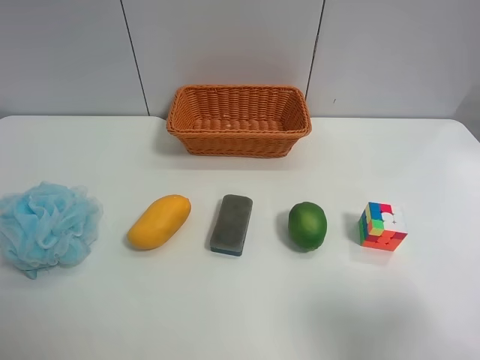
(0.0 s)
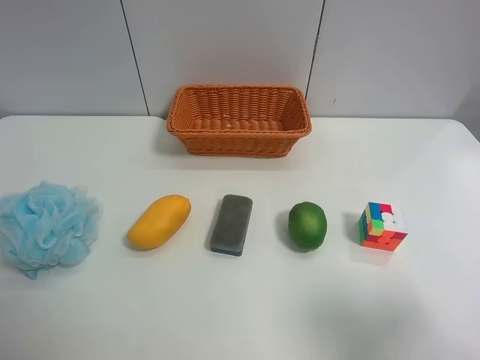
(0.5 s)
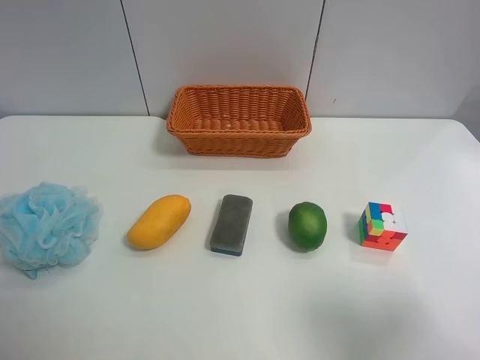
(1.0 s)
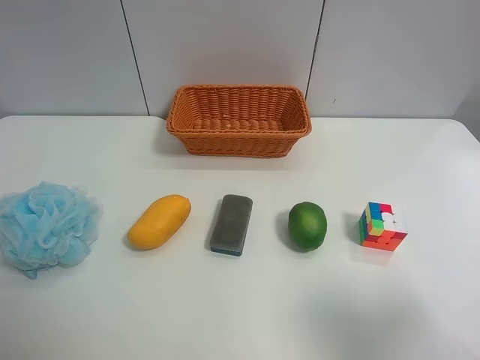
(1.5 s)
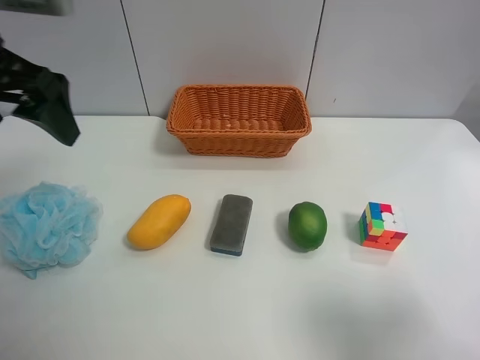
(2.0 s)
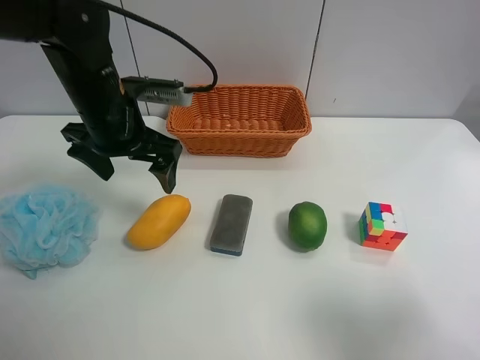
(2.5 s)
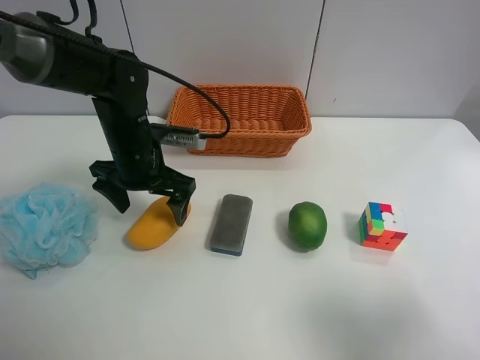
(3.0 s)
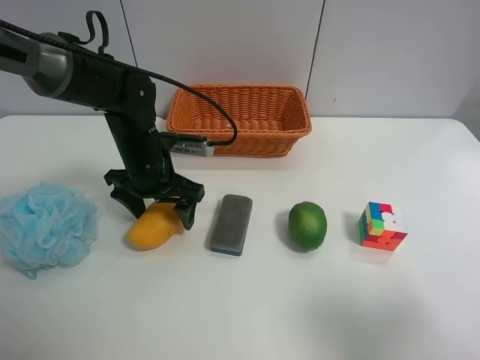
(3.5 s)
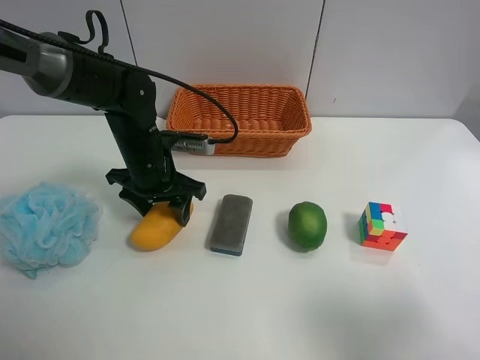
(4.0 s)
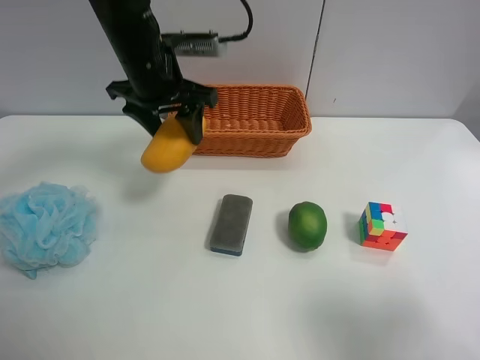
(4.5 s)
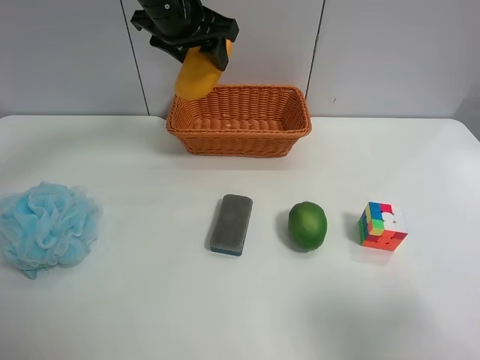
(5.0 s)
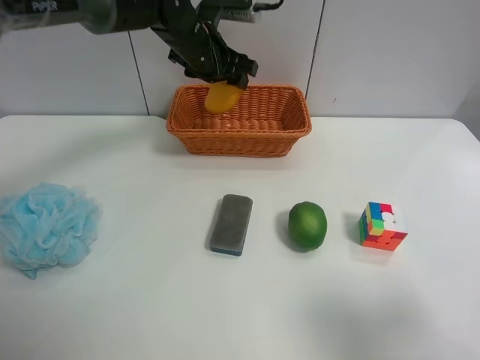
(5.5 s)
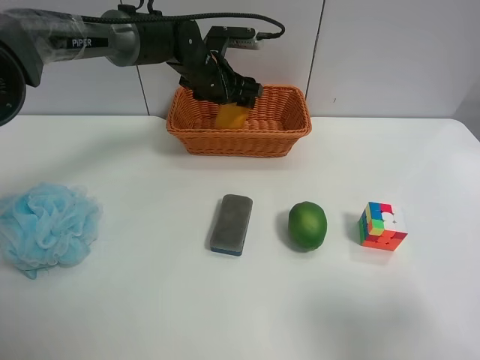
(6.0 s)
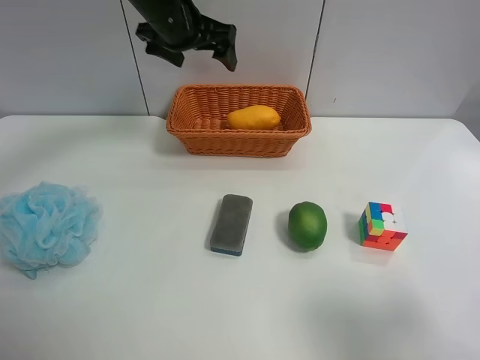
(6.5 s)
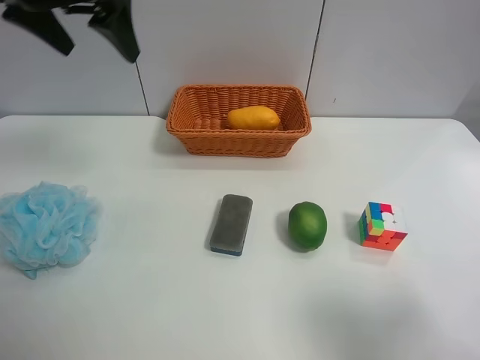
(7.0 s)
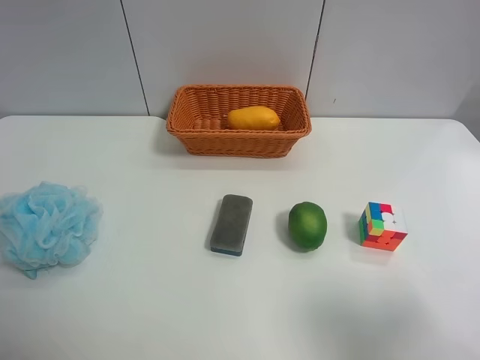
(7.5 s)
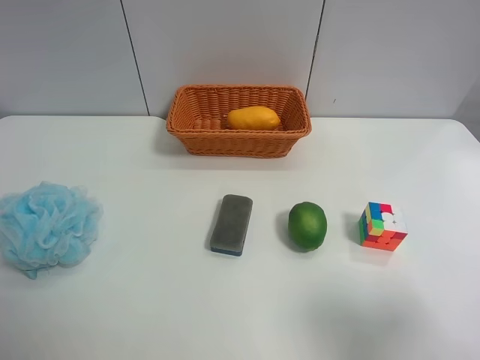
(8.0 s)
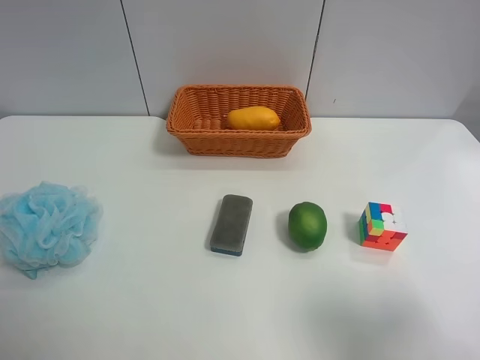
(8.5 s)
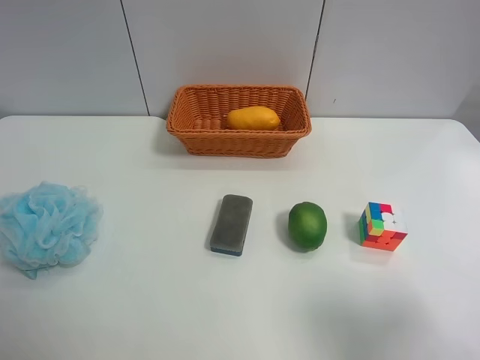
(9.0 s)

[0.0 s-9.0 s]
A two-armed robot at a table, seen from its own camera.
Task of the whole recording: use the left gripper to grab items from the table and place them in the basket.
Step, 0.0 to 3.5 s: Grasp the mango with the left gripper.
Step, 4.0 to 6.0 s: Place the mango into the basket with the left gripper.
0.0 to 2.0 s: The left gripper moves forward, roughly 25 cm.
2.0 to 4.5 s: The left gripper is displaced forward and to the right by roughly 15 cm, moves some 20 cm downward and comes back, and closes.
4.5 to 7.0 s: The left gripper moves up and down over about 20 cm, changing direction 2 times, and opens up.
7.0 to 9.0 s: The left gripper is displaced backward by approximately 35 cm.
